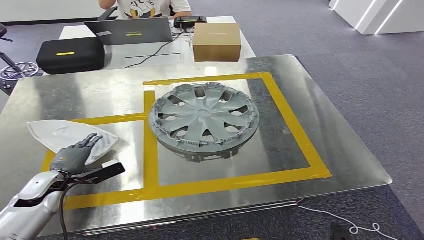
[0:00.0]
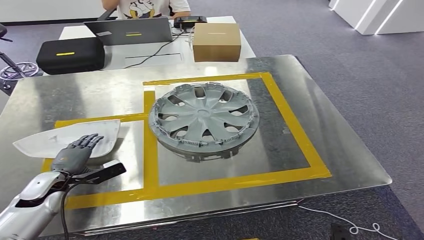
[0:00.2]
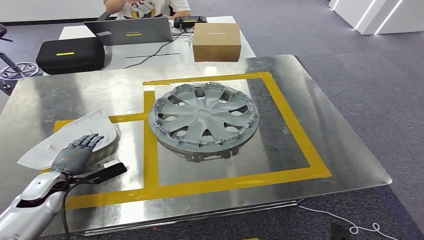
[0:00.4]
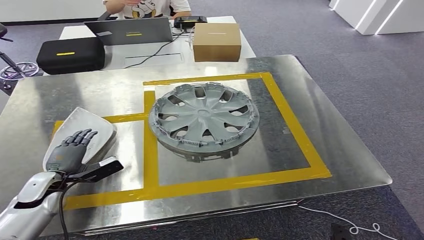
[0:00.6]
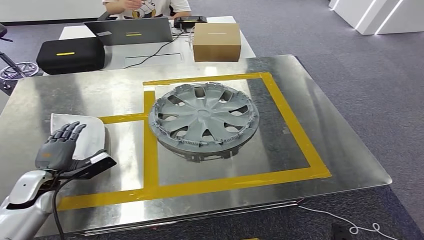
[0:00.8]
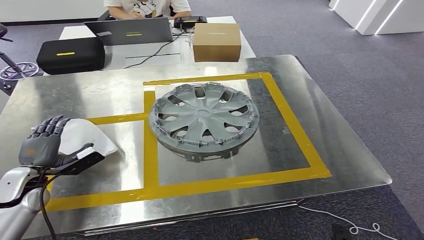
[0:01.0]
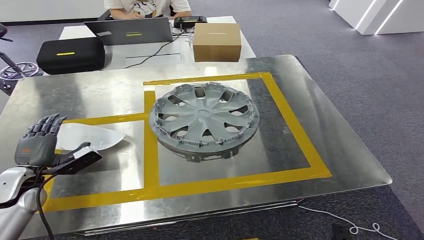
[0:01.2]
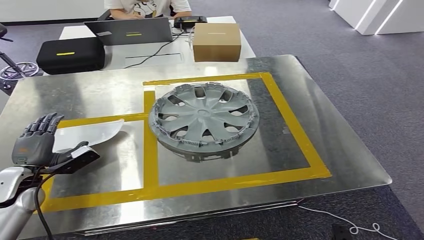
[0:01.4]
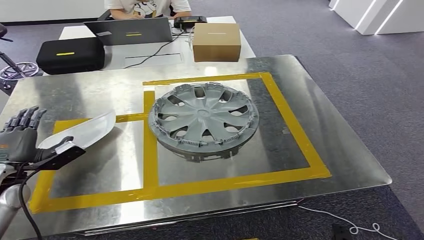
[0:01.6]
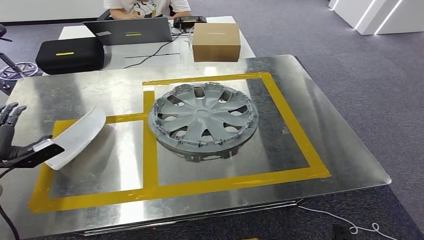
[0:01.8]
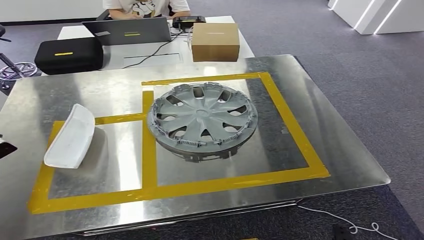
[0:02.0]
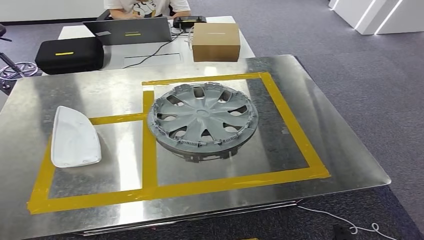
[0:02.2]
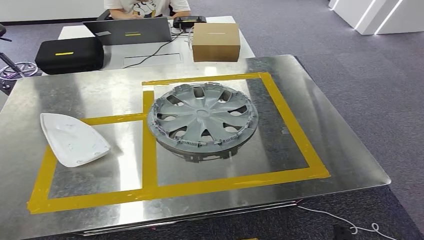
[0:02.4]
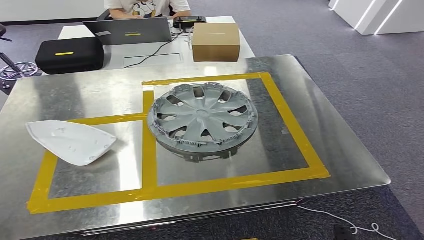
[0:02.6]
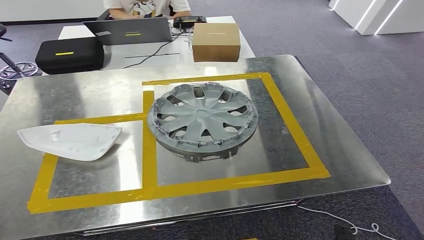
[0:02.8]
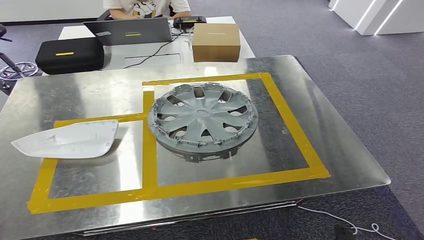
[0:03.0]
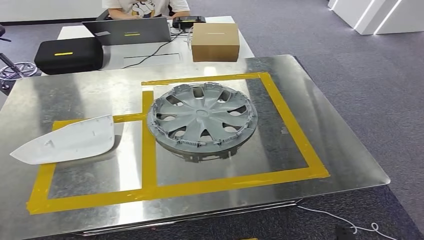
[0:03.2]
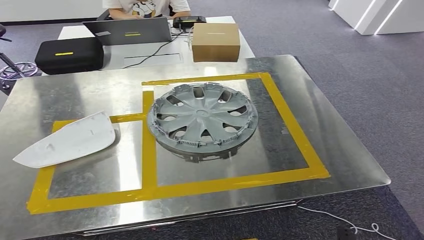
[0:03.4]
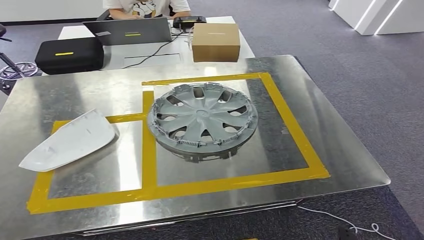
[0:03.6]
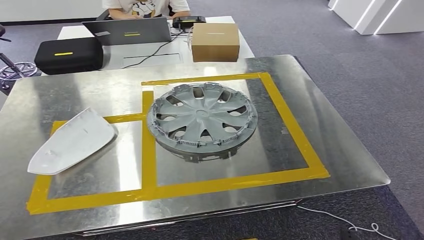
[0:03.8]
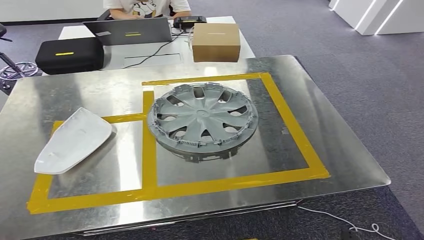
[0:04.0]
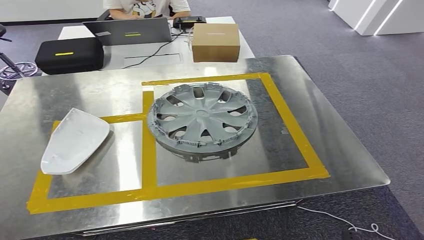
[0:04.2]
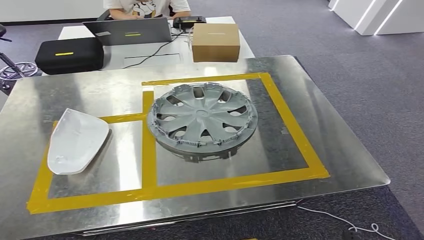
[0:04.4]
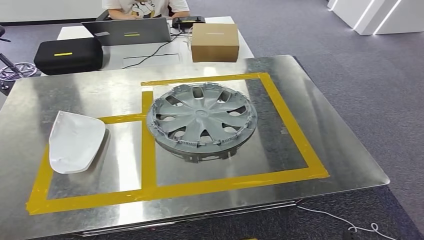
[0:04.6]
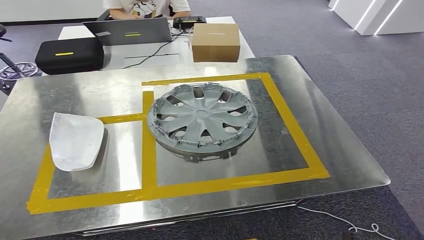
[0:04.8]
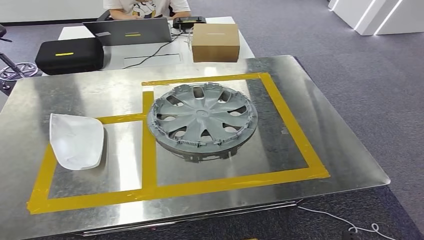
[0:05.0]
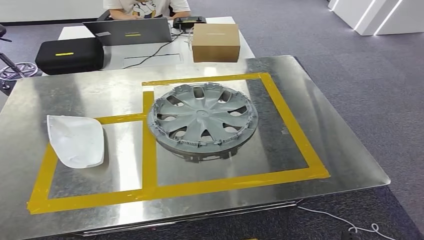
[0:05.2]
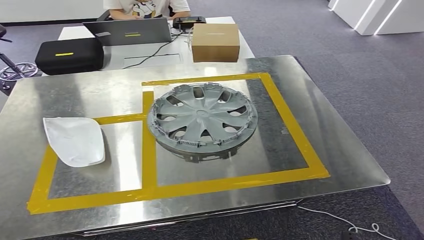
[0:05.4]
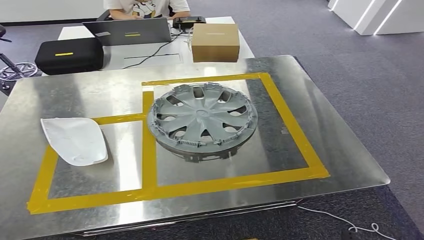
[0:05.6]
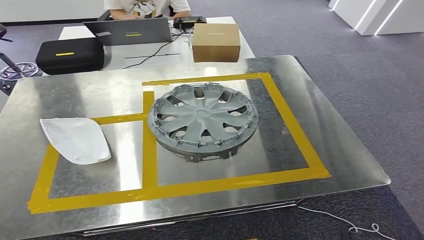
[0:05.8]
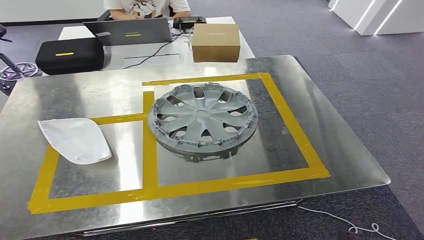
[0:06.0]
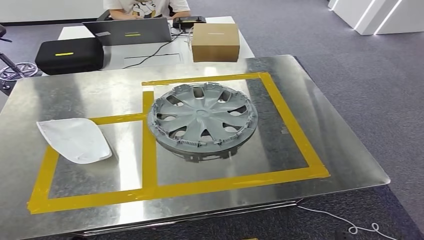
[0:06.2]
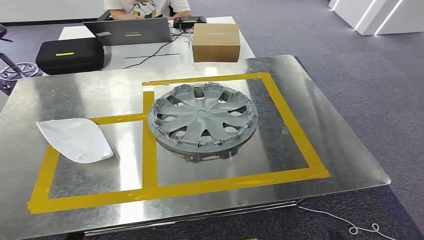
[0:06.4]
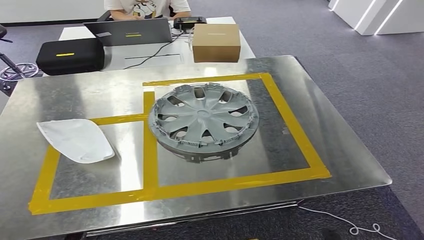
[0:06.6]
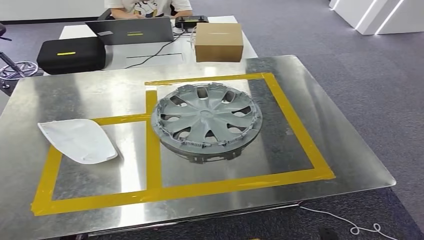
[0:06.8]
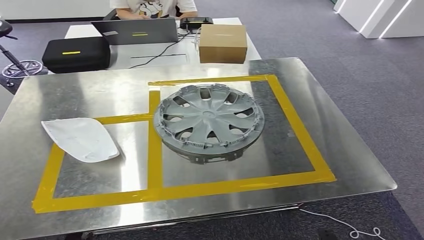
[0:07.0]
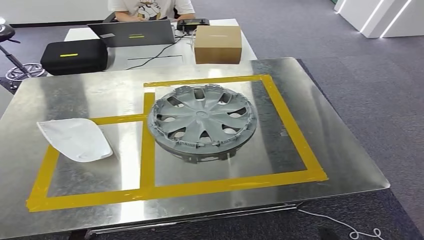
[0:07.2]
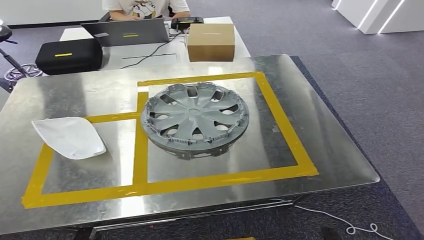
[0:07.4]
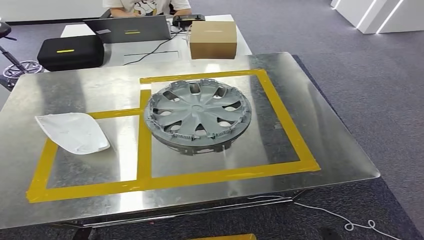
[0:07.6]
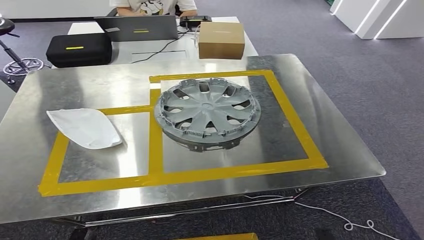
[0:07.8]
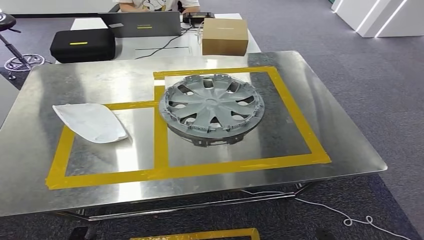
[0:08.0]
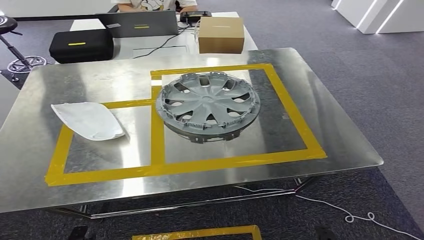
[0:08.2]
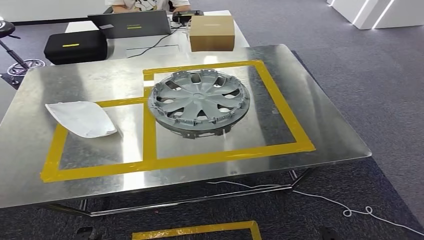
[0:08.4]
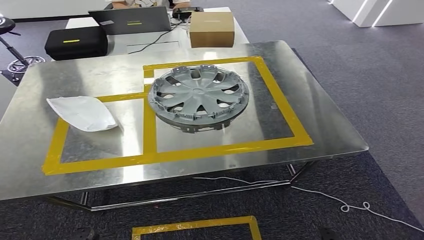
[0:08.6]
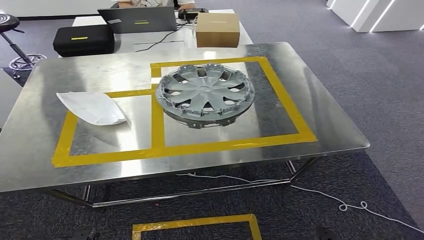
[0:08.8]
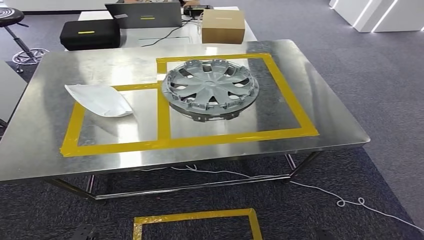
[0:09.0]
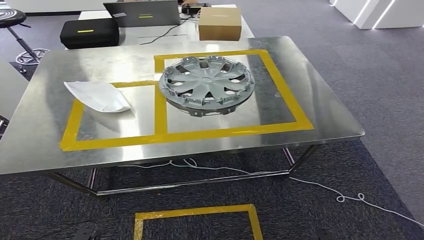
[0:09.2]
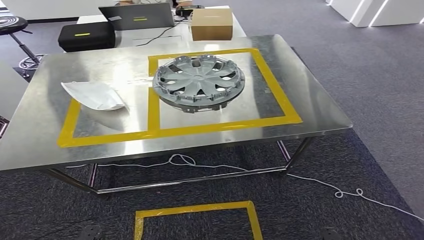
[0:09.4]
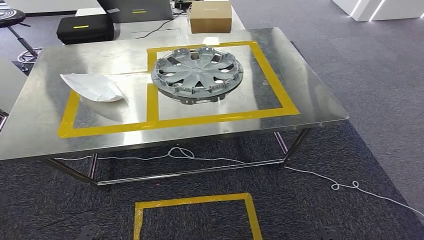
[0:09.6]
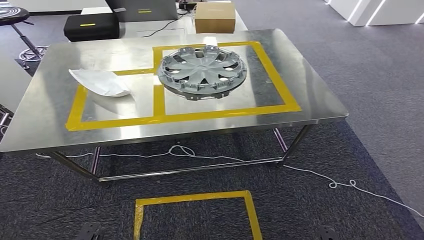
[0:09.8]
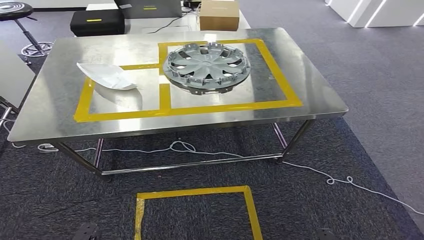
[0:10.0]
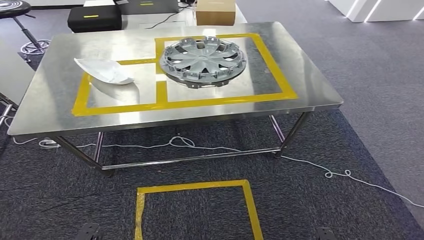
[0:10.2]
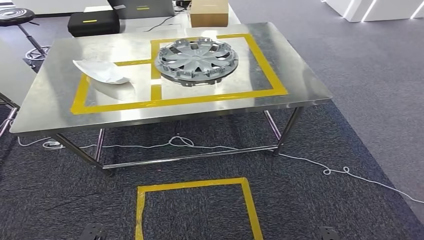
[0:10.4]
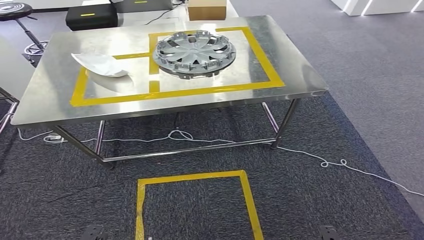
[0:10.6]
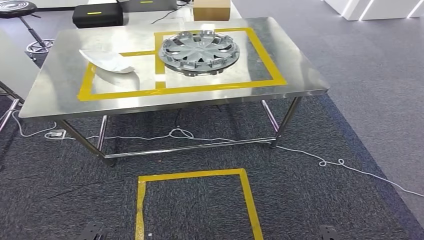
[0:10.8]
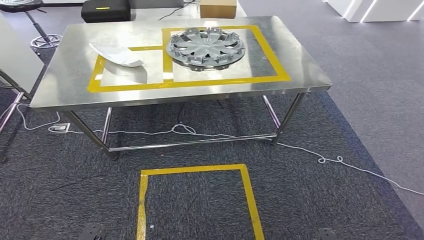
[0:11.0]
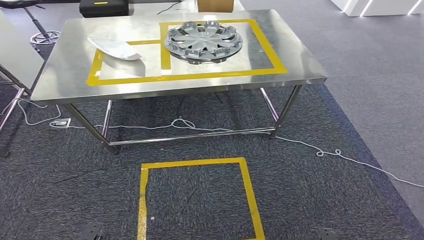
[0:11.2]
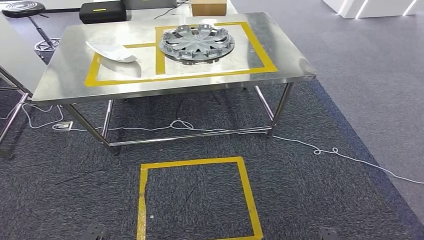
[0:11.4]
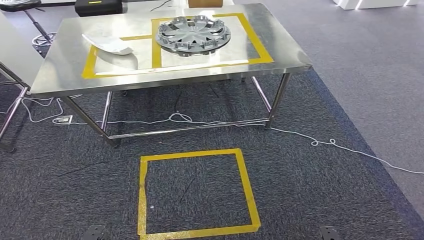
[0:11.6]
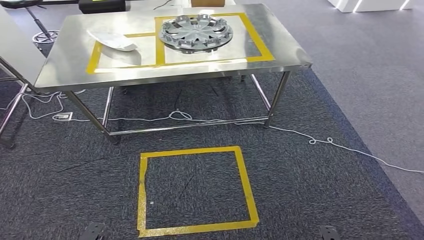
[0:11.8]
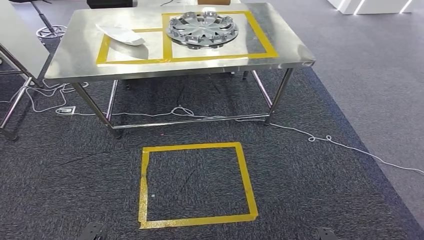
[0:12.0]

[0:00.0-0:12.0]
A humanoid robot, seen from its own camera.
Step, 0:00.0 to 0:02.4: Insert the small parts into the corresponding holes on the workbench.
0:00.0 to 0:01.6: The left hand is displaced upward and to the left by about 10 cm.
0:01.6 to 0:03.0: The left hand shifts about 30 cm to the left and backward.
0:03.0 to 0:04.4: The left hand travels backward by some 15 cm.
0:04.4 to 0:06.0: The left hand travels to the right and downward by roughly 40 cm.

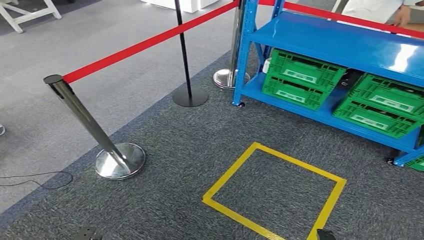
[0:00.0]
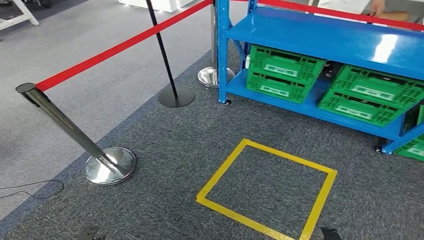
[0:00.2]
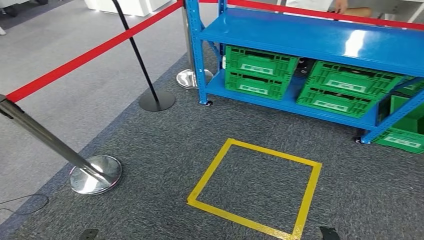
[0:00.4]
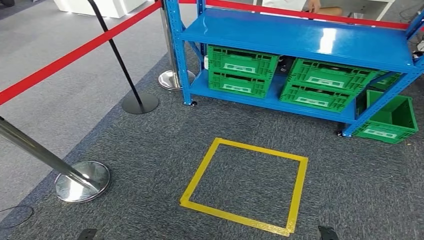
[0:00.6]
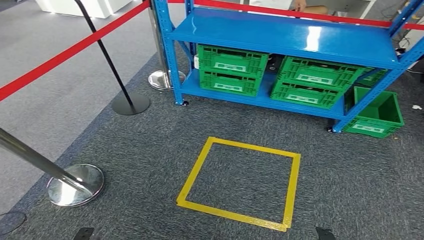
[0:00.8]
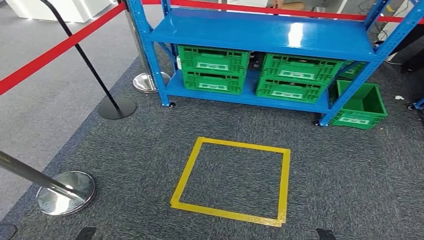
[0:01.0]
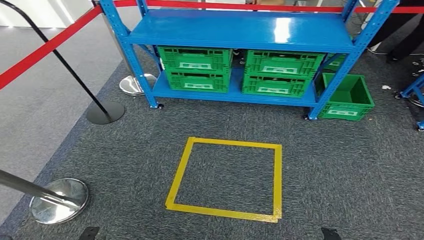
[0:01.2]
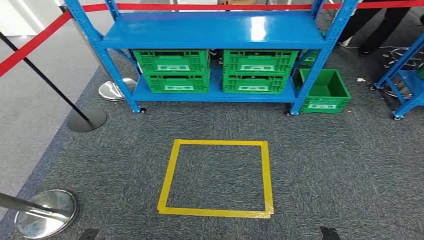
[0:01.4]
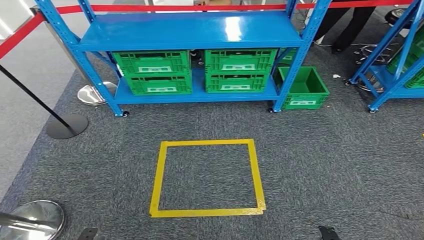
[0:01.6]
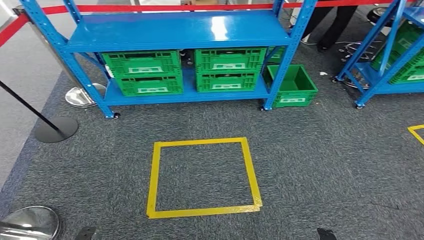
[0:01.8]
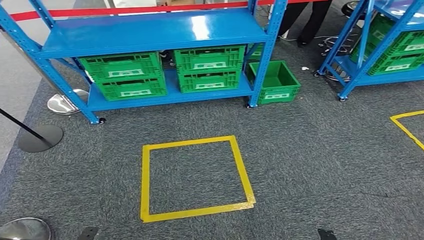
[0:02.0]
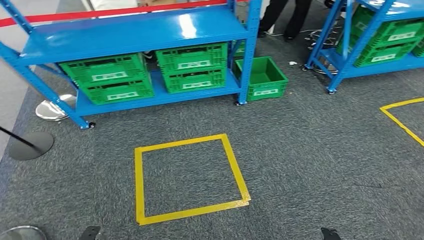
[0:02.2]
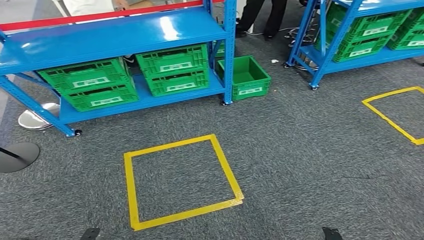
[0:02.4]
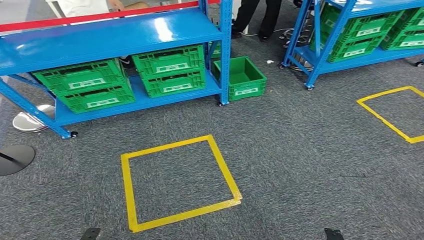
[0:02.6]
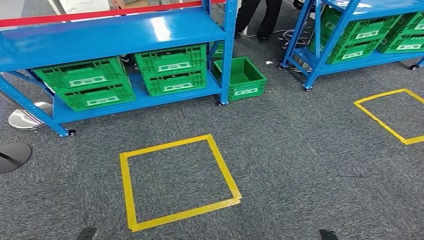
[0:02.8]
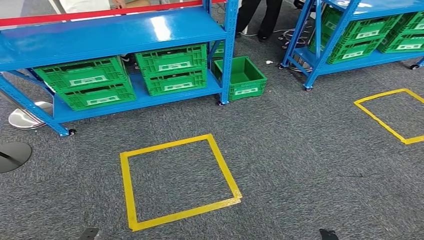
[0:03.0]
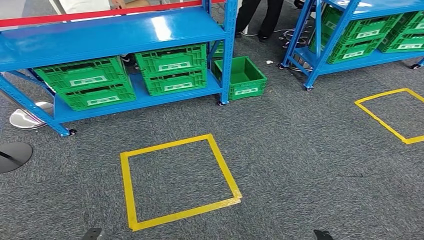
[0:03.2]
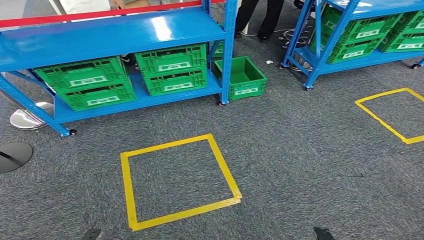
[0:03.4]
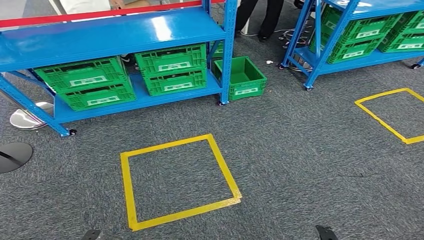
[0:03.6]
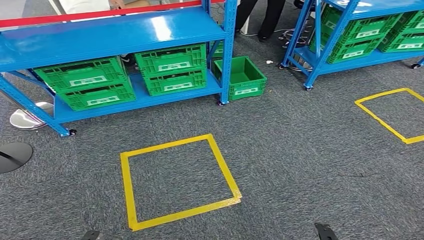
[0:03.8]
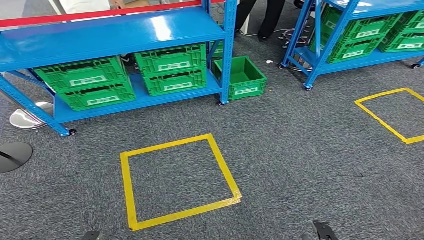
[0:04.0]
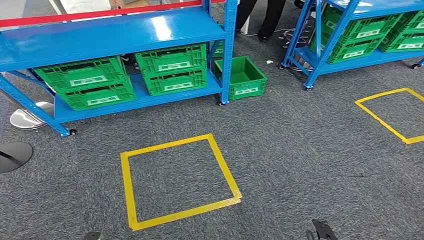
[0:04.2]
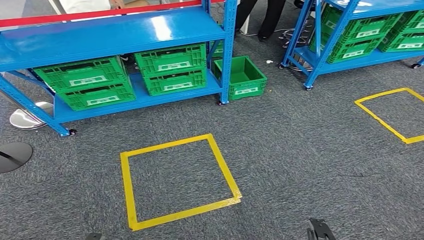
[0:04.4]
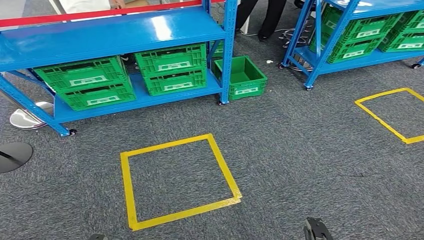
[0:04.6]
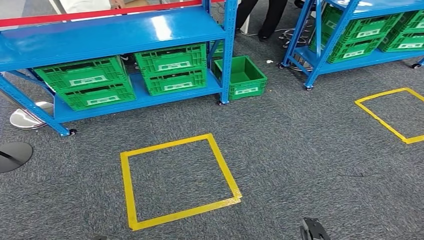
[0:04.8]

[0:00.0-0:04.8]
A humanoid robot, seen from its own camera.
Step, 0:00.0 to 0:04.8: Move to the initial position of the workbench.
0:03.2 to 0:04.8: The right hand ends up roughly 5 cm from where it was.
